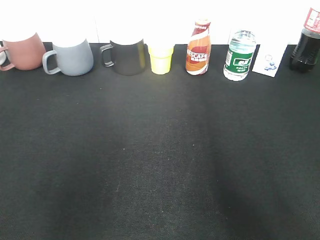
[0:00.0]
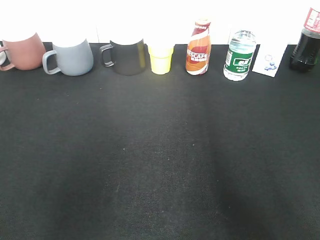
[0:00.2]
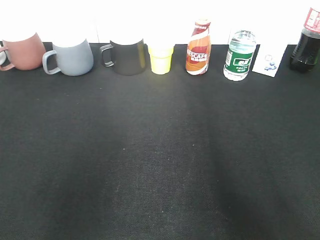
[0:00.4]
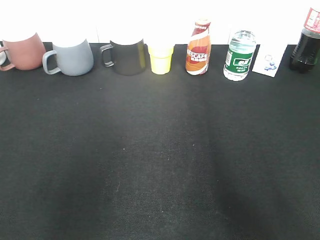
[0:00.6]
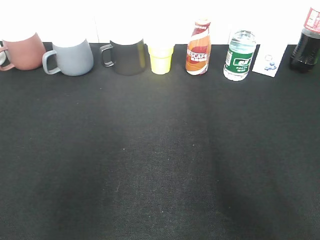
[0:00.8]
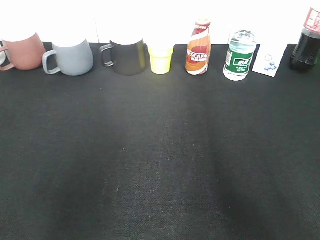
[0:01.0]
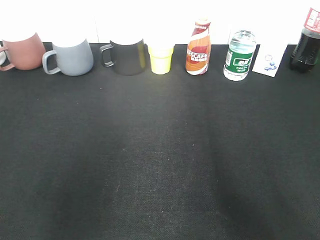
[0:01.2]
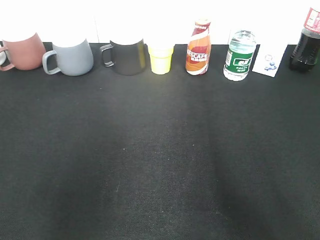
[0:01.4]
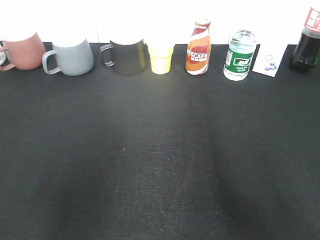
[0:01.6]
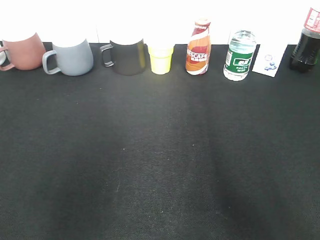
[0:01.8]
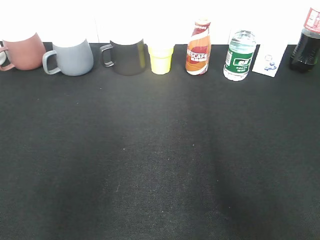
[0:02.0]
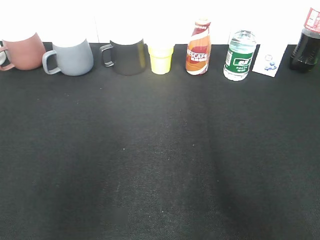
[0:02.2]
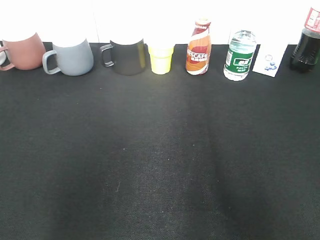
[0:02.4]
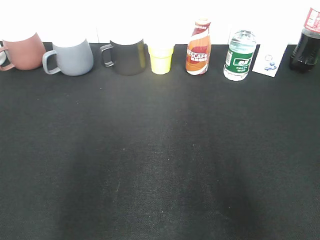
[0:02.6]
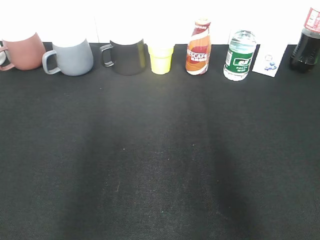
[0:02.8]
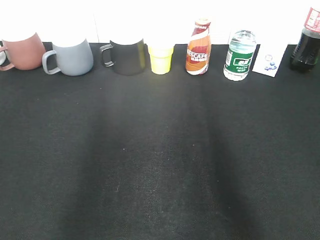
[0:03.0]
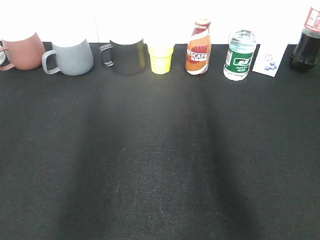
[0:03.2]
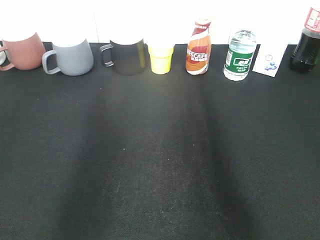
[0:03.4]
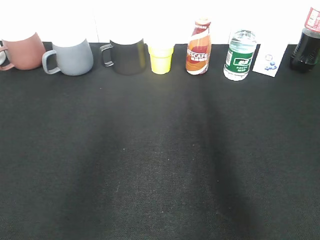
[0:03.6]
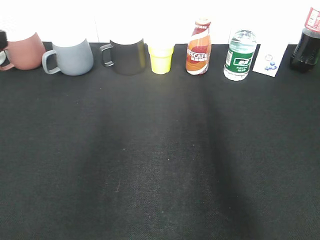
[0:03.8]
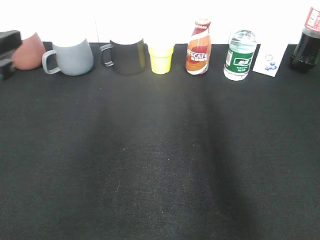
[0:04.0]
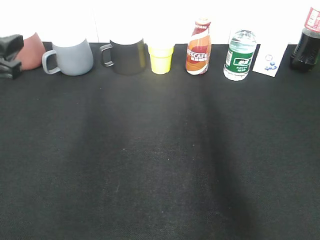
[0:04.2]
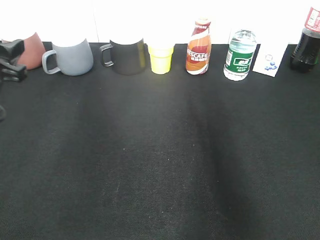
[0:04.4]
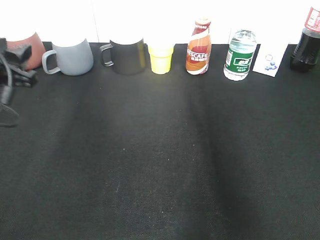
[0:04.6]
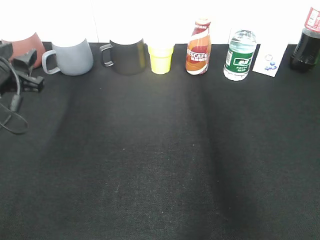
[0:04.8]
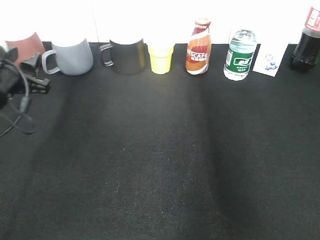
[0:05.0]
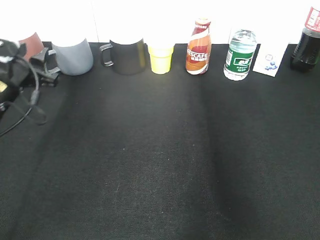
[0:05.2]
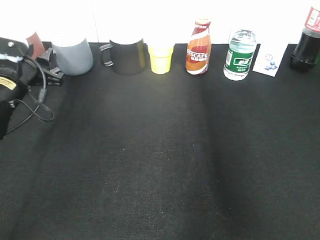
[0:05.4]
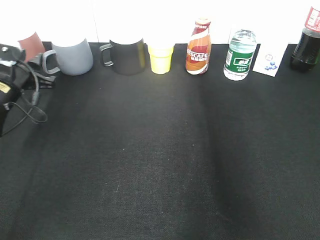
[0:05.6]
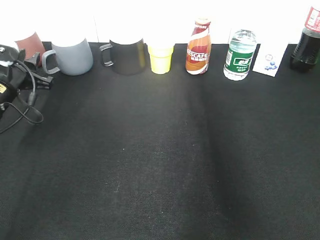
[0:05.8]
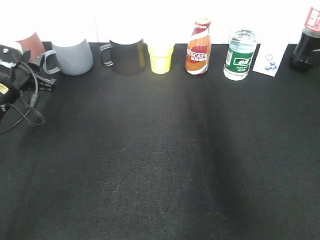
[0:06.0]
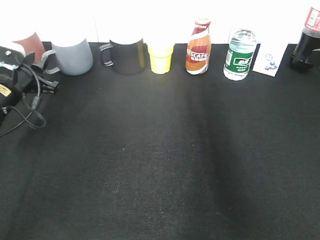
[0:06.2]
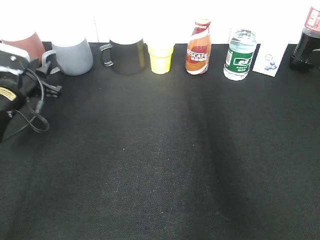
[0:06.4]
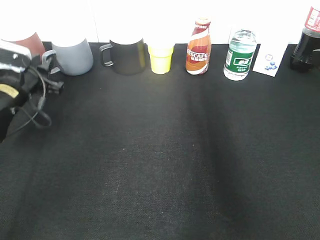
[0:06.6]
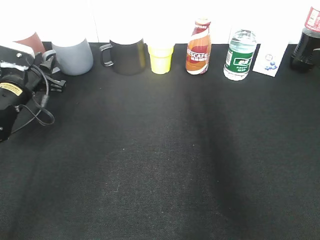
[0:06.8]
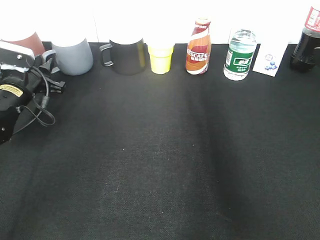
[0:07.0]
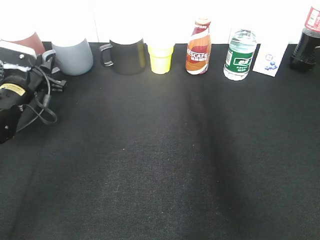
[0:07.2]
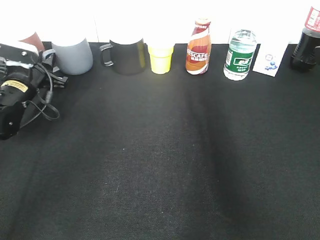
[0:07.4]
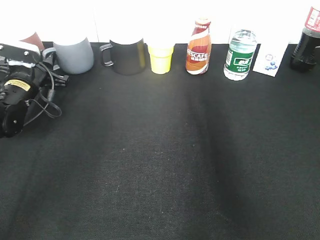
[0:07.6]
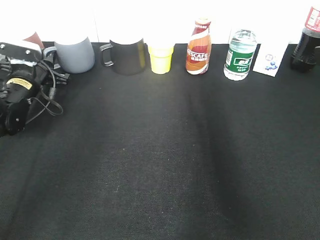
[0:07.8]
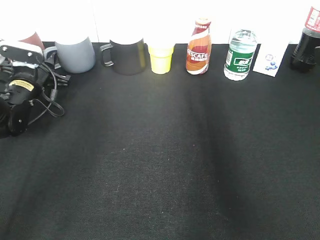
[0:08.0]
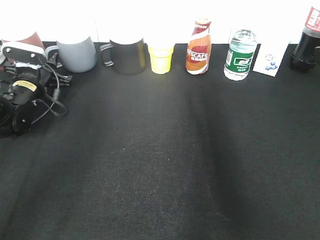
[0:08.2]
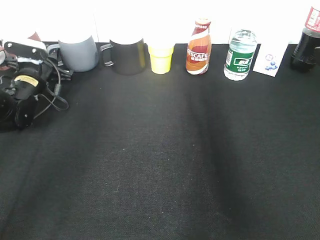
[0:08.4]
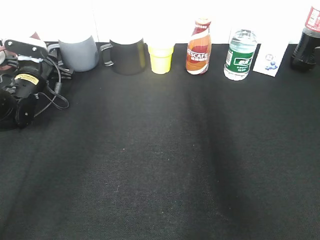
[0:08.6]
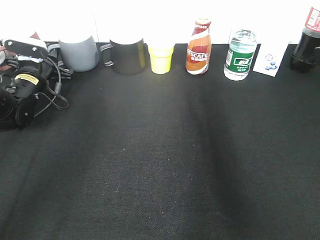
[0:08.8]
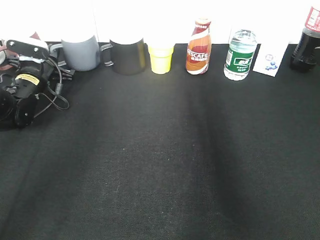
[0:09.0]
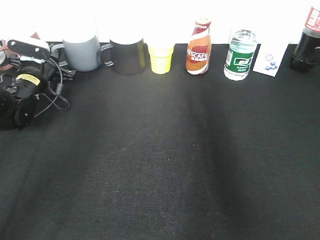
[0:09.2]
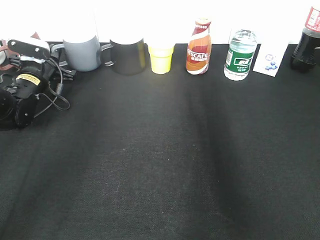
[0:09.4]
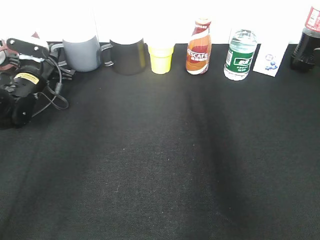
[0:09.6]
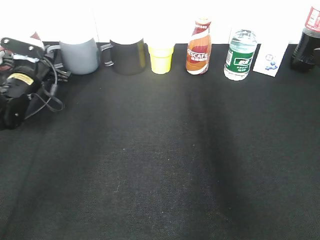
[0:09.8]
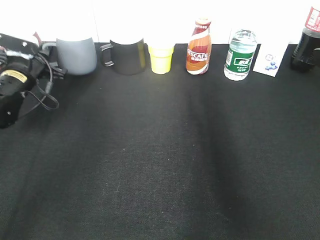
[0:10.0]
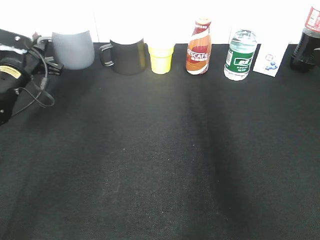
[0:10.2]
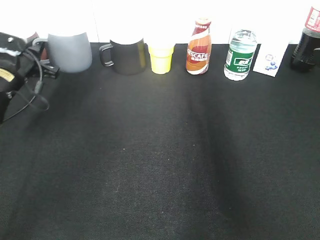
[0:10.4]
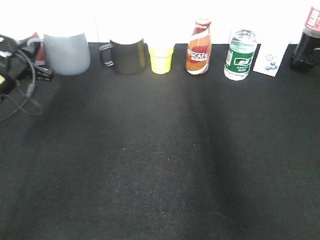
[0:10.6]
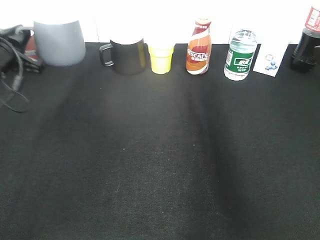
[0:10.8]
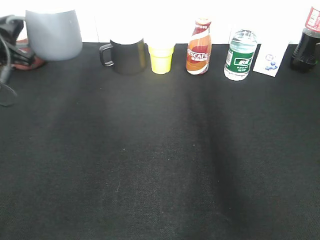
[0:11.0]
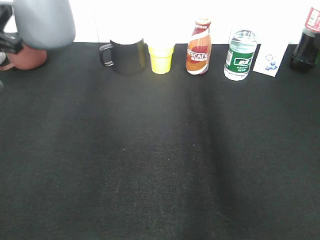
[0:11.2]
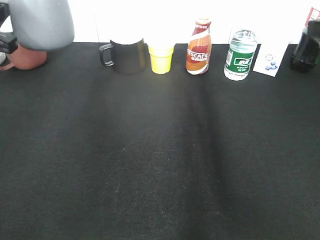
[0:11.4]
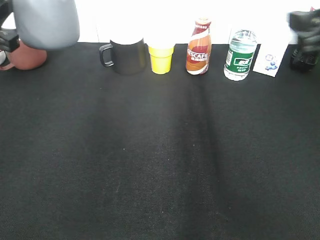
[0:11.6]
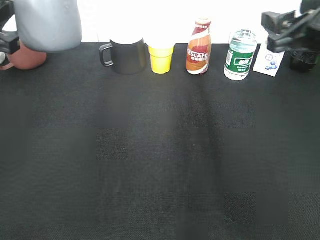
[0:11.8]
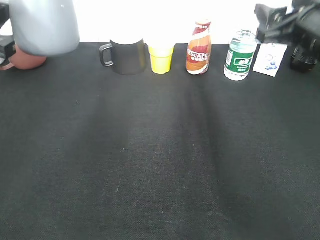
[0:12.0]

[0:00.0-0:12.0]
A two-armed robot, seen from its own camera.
Step, 0:01.6 to 0:09.2: Grasp the grey cup with left gripper.
0:00.0 to 0:01.6: Both grippers stay about where they are.
0:03.0 to 0:04.4: The left gripper shifts approximately 25 cm forward and downward.
0:04.4 to 0:06.0: The left gripper heads forward and downward, covering about 15 cm, and closes its fingers.
0:06.0 to 0:07.6: The left gripper goes roughly 5 cm forward.
0:07.6 to 0:09.0: The left gripper closes its fingers.
0:09.0 to 0:10.4: The left gripper goes roughly 10 cm backward and upward.
0:10.4 to 0:12.0: The left gripper goes roughly 20 cm backward and upward. Meanwhile the right gripper goes about 10 cm forward and to the left.

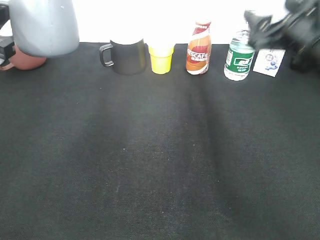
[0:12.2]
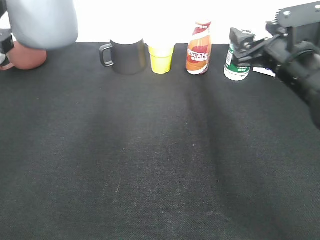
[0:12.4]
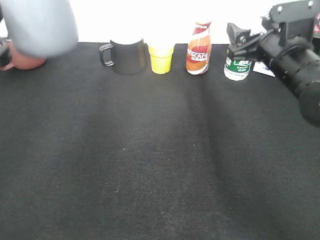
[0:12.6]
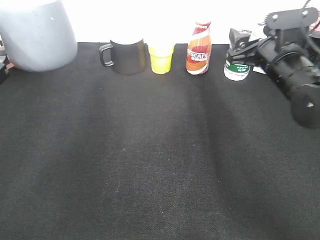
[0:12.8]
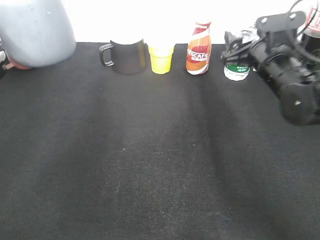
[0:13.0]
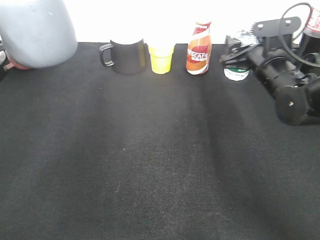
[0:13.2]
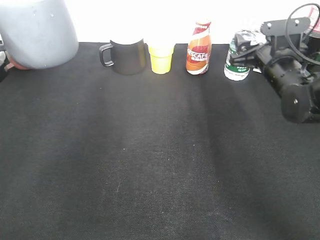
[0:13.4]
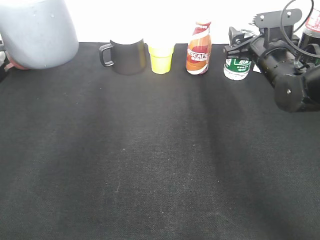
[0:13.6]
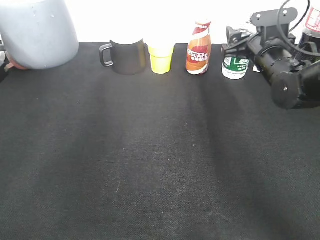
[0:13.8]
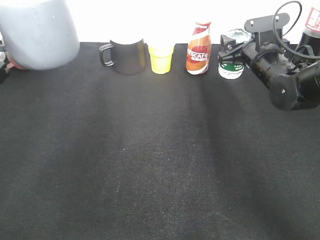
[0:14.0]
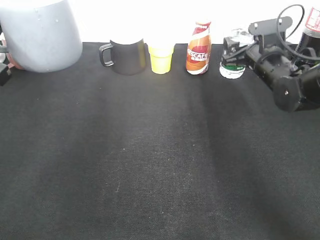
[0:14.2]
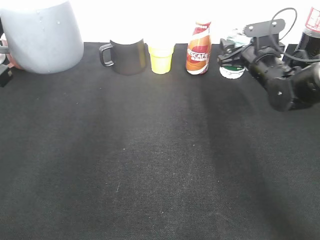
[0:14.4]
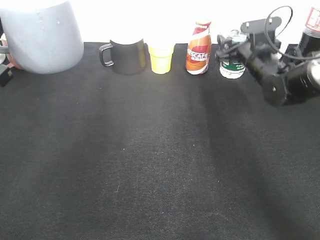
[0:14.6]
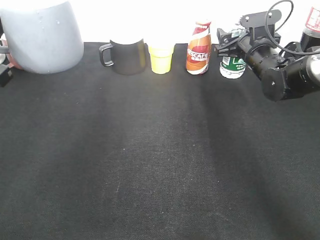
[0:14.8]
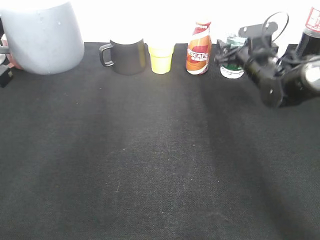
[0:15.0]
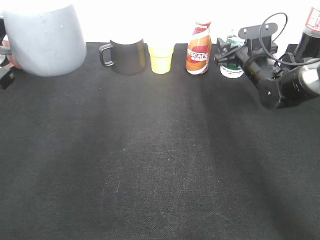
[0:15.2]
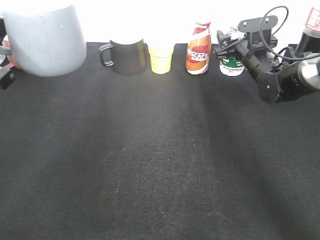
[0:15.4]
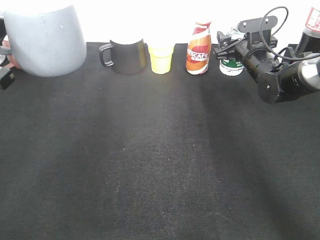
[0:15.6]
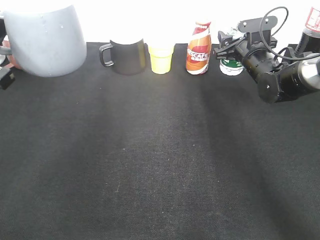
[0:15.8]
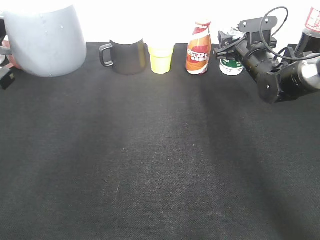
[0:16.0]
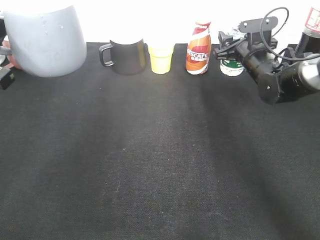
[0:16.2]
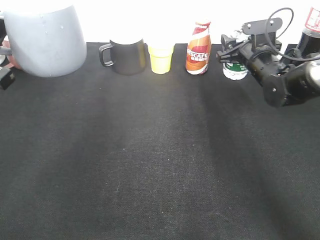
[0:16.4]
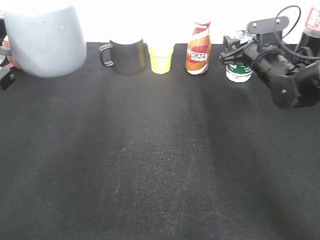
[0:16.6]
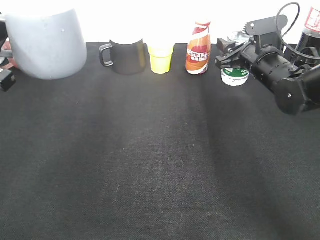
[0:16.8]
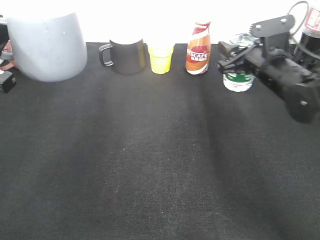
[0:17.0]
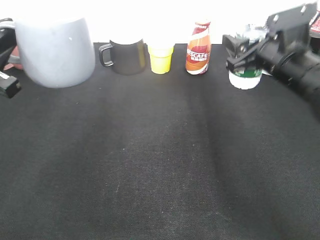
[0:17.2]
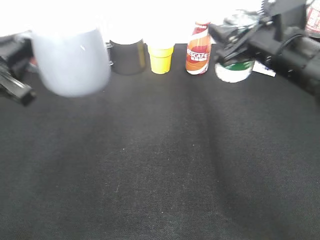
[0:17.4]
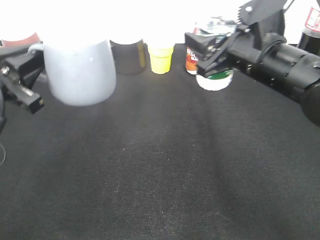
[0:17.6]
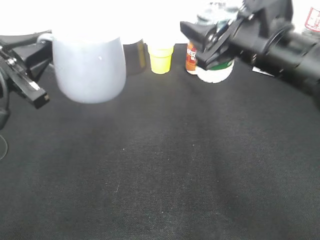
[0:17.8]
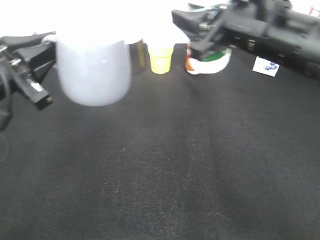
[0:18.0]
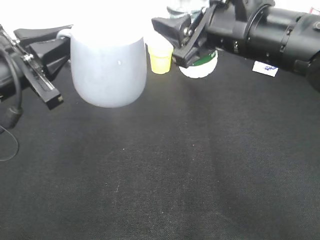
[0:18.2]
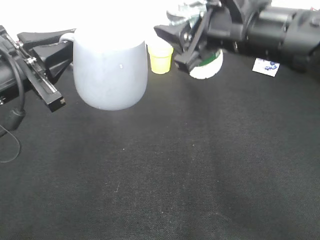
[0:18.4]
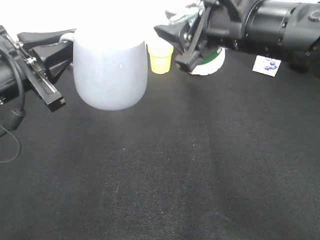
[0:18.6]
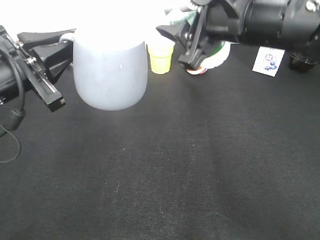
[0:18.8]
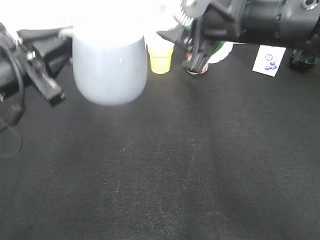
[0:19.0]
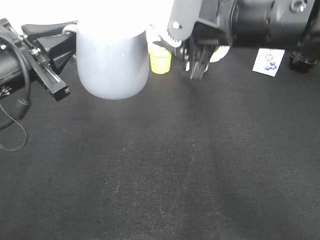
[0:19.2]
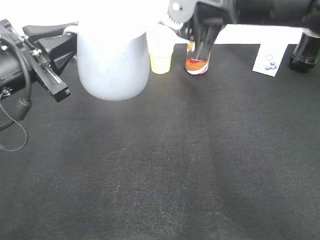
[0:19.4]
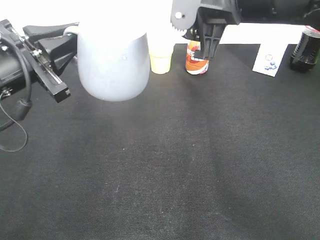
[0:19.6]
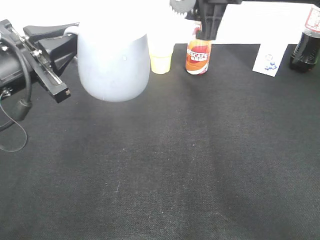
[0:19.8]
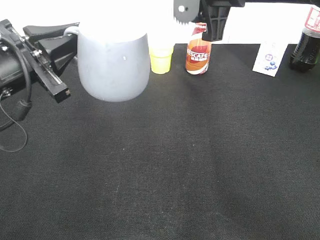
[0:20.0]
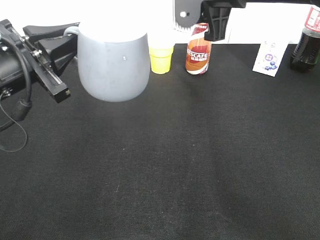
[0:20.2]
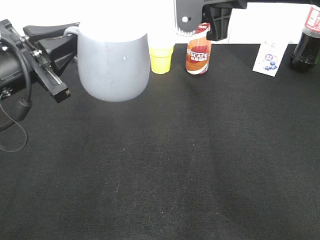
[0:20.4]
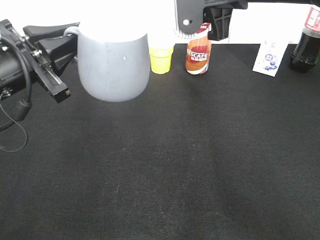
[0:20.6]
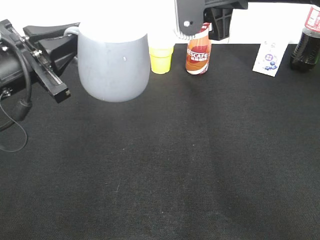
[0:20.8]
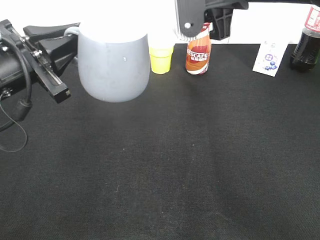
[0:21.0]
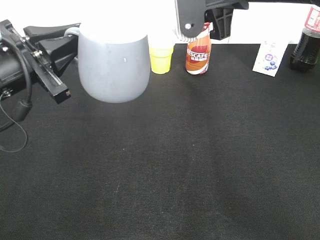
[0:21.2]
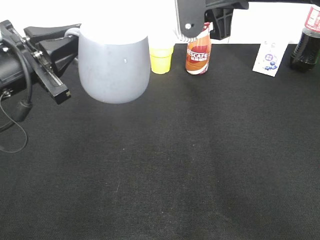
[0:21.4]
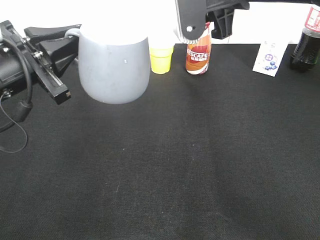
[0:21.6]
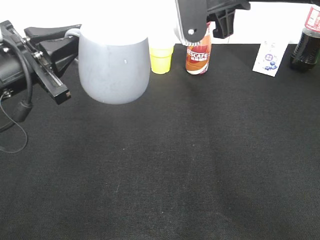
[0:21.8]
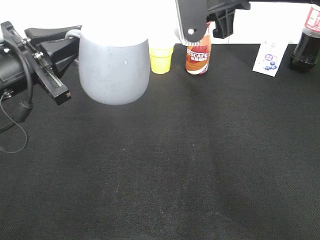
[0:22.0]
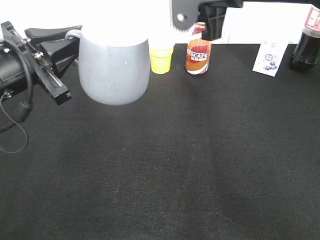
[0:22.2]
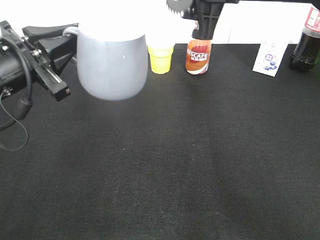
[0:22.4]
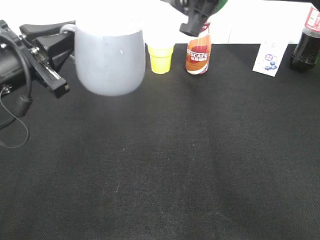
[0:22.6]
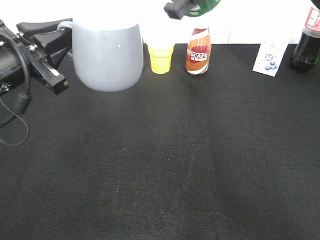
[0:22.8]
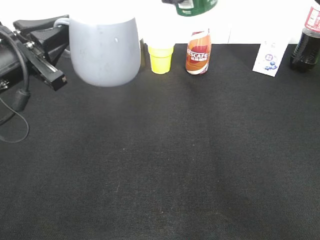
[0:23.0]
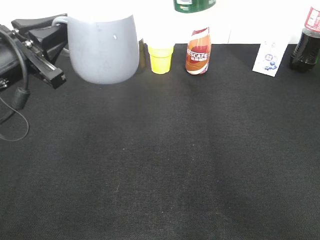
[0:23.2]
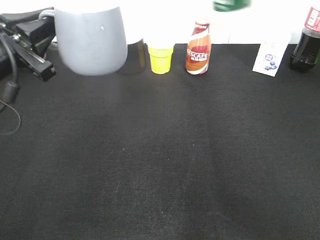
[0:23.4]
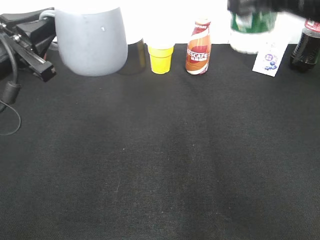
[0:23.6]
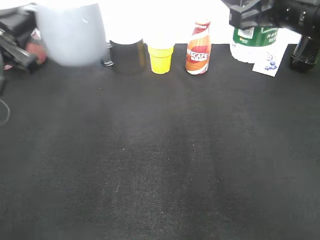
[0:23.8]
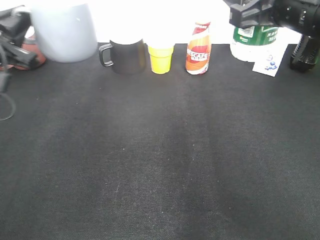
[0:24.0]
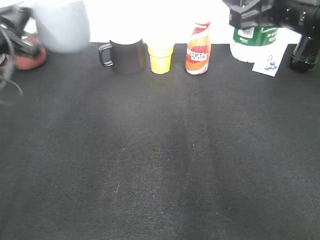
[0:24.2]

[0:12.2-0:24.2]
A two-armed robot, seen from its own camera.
Step, 0:13.6 to 0:16.0: Grasp the bottle with water with right gripper.
Step, 0:16.2 to 0:23.0: Pour the water from bottle to cup with right gripper.
0:12.2 to 0:13.8: The right gripper is displaced forward and downward by some 15 cm.
0:13.8 to 0:15.2: The right gripper shifts some 5 cm forward.
0:15.2 to 0:16.6: The right gripper closes its fingers.
0:16.6 to 0:18.2: The left gripper is displaced to the right by roughly 5 cm; the right gripper is displaced backward, upward and to the left by about 25 cm.
0:18.2 to 0:19.8: The right gripper goes some 5 cm upward.
0:22.6 to 0:24.2: The left gripper is displaced forward and to the left by approximately 10 cm, while the right gripper moves to the right, roughly 10 cm.
